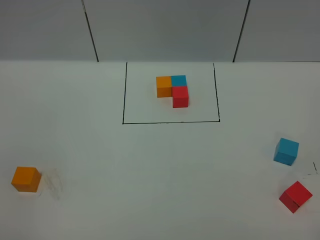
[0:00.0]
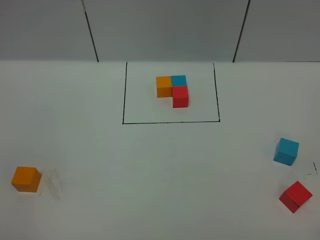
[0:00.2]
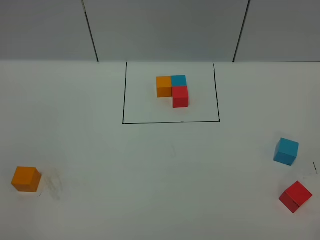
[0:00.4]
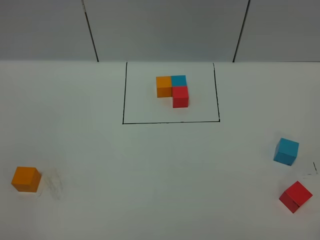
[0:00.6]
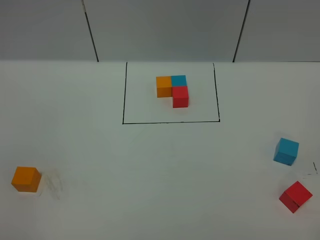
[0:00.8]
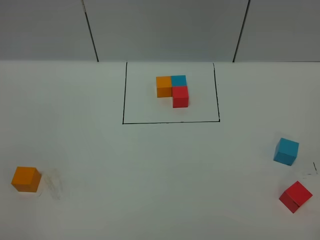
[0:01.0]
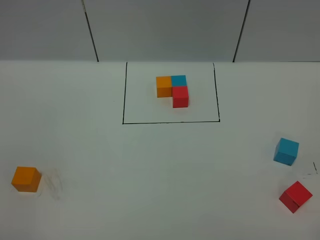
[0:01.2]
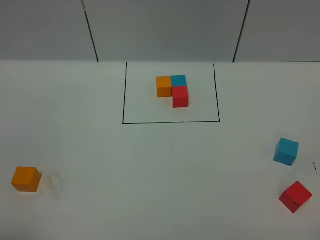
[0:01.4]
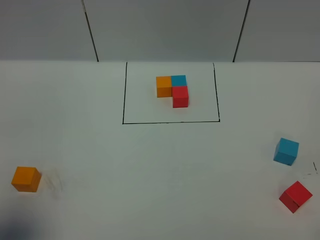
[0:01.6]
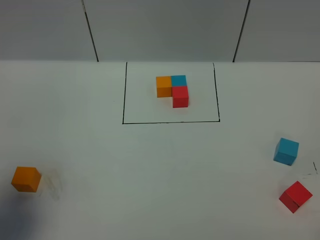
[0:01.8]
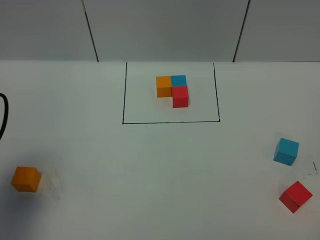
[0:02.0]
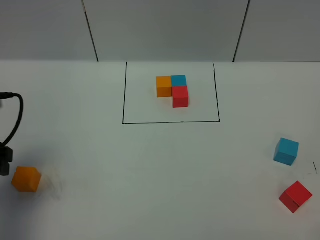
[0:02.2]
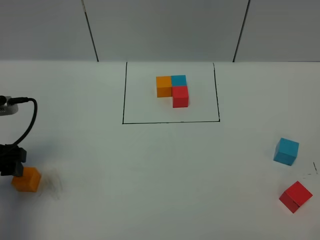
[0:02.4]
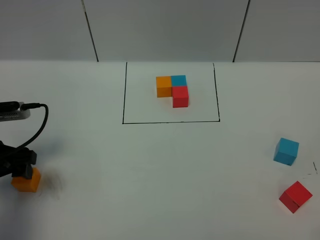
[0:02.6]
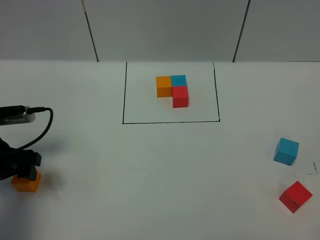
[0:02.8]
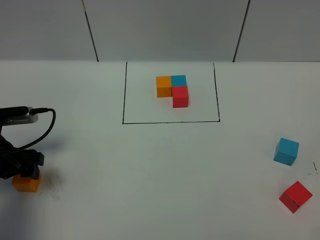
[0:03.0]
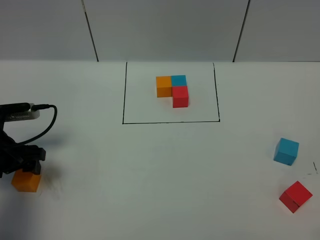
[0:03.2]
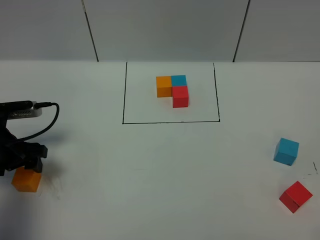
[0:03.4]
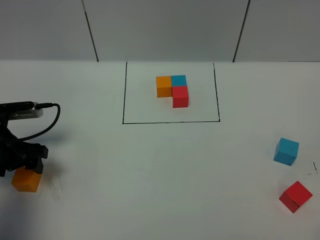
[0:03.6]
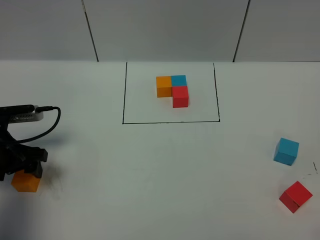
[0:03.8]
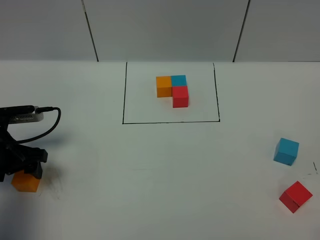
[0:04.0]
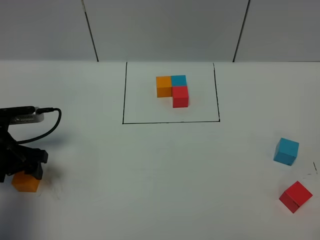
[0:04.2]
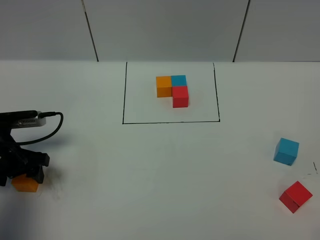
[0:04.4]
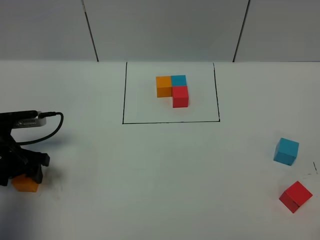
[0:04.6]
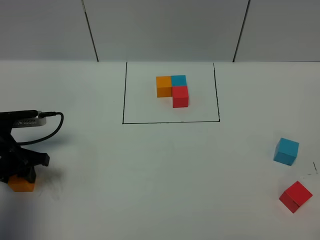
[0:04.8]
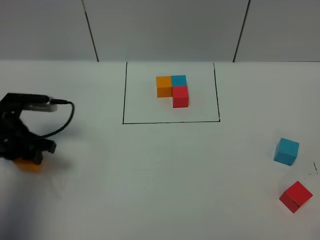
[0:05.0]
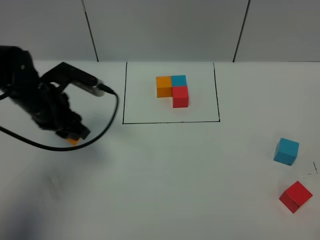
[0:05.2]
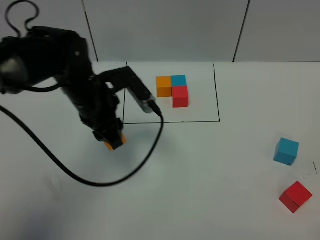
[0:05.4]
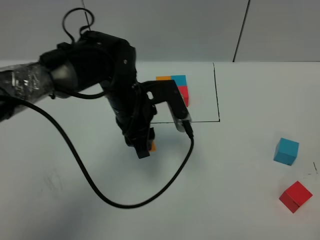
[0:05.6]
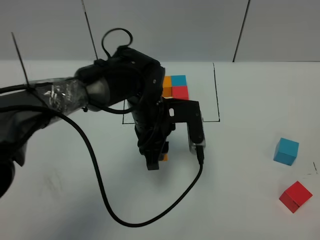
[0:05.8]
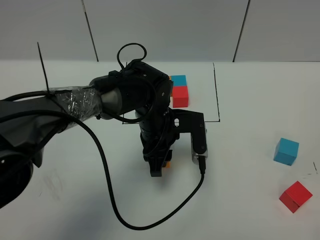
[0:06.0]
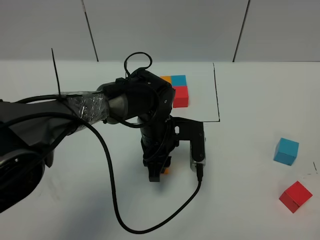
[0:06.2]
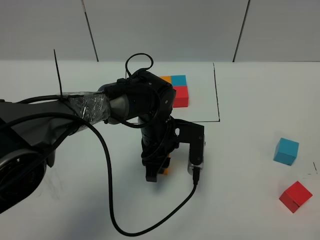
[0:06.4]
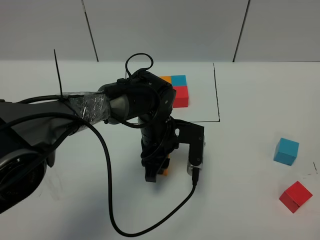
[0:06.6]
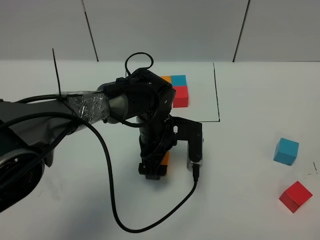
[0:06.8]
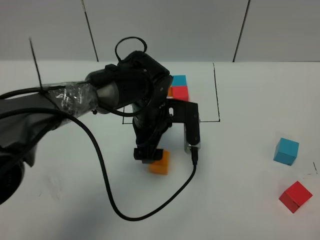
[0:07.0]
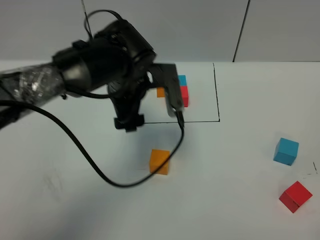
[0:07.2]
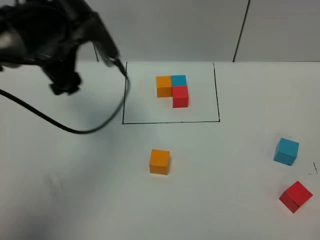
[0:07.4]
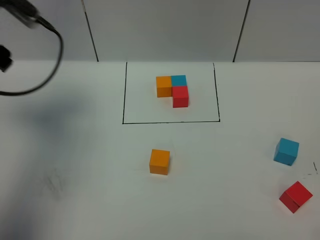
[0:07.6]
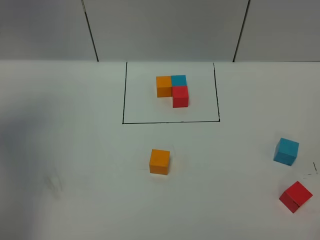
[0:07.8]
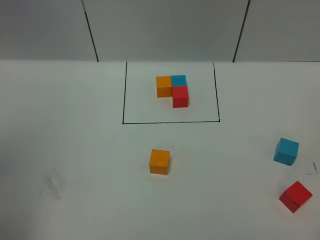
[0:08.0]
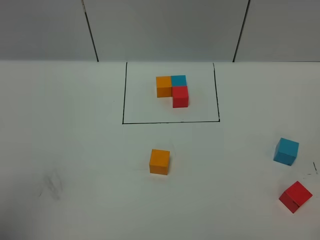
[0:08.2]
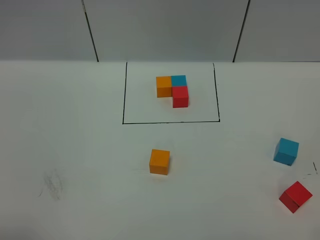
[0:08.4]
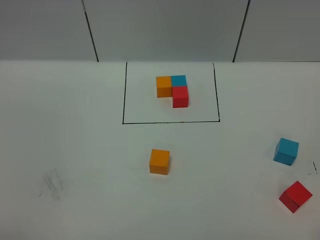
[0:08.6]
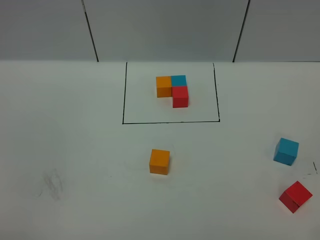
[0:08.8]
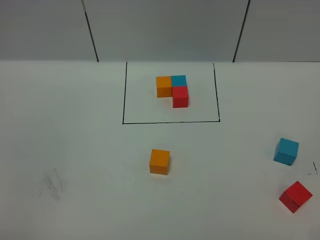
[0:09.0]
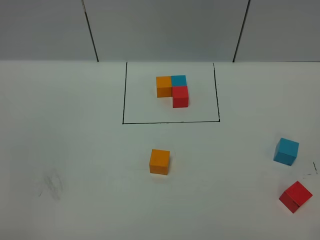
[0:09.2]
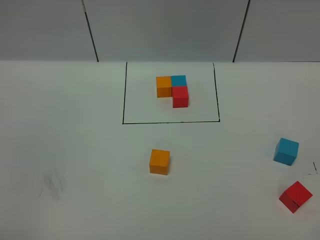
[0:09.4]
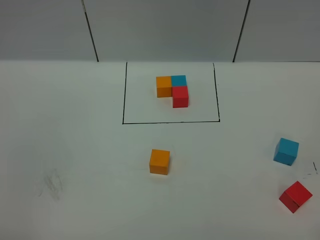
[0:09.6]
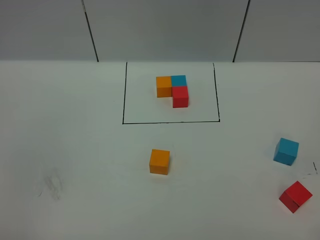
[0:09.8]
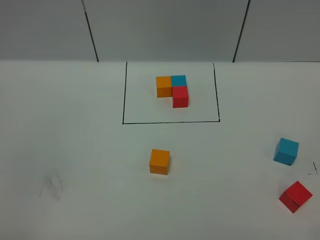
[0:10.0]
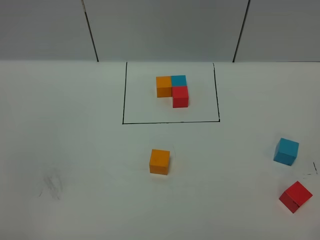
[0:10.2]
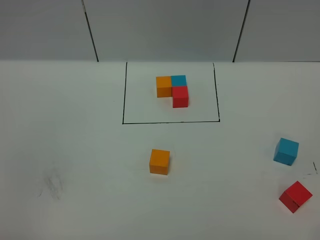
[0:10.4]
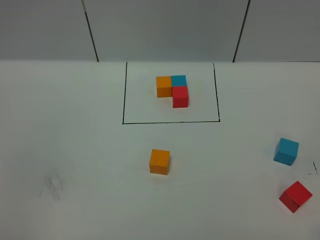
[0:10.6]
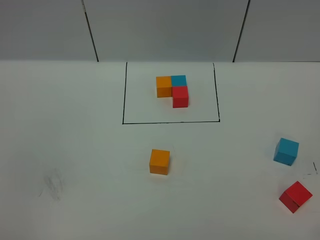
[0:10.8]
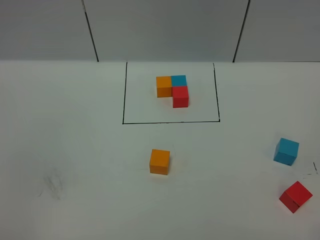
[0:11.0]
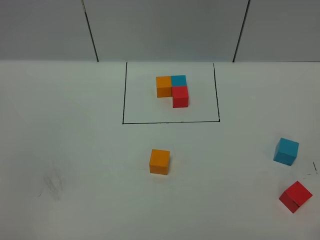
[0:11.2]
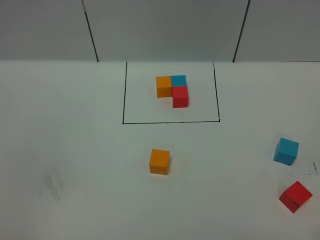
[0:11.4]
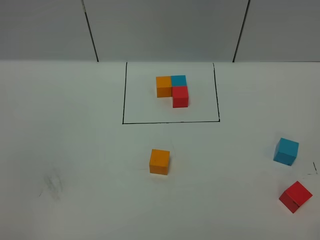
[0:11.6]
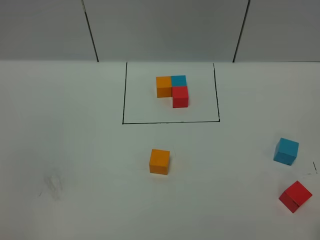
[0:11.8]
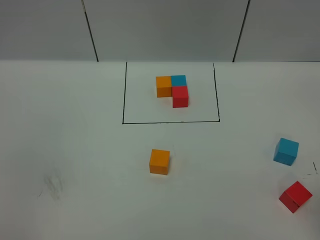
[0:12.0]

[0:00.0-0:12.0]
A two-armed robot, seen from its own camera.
Task of the whole recording: According to the building block template in front, assemble the scattered blocks together.
Step, 0:02.0 to 0:06.8: Put the orange cube in the center of the table.
0:00.0 to 0:01.6: The left gripper shifts approximately 10 cm forward.
0:01.6 to 0:03.0: The left gripper shifts approximately 25 cm forward and downward.
0:03.0 to 0:04.4: The grippers move only a little.
0:04.4 to 0:06.0: The left gripper goes roughly 30 cm to the right, and closes its fingers.
0:06.0 to 0:07.6: The left gripper shifts approximately 35 cm to the left and upward, and opens up.
0:07.6 to 0:09.0: The left gripper heads backward, covering approximately 35 cm.

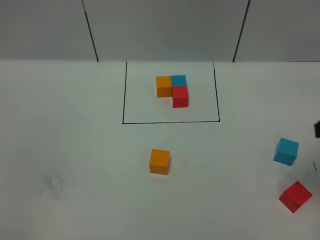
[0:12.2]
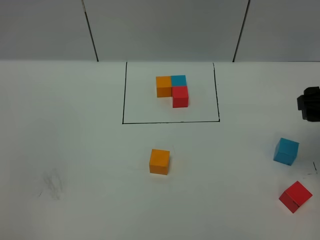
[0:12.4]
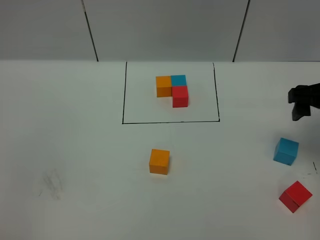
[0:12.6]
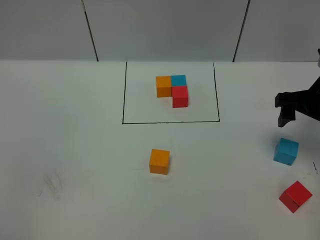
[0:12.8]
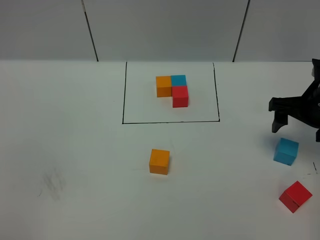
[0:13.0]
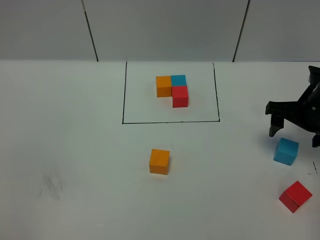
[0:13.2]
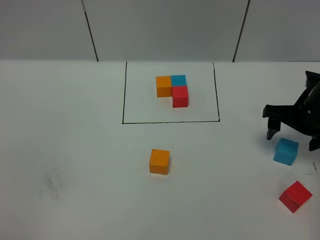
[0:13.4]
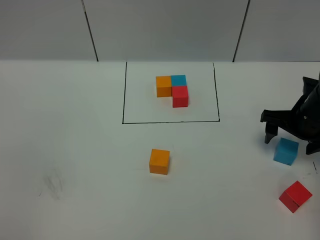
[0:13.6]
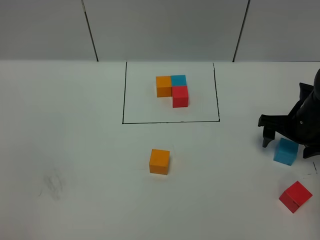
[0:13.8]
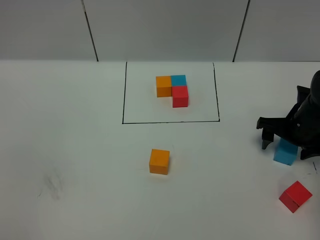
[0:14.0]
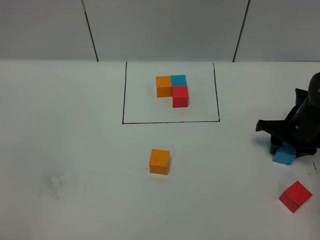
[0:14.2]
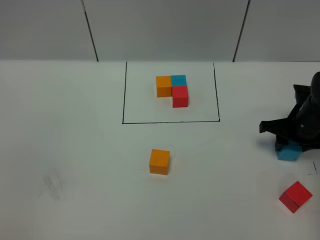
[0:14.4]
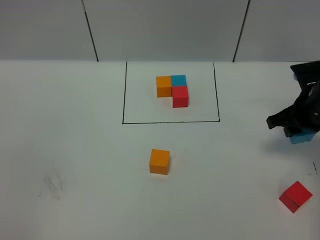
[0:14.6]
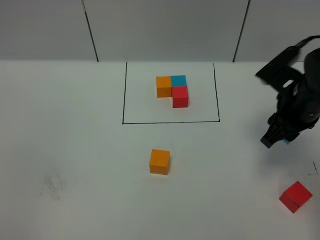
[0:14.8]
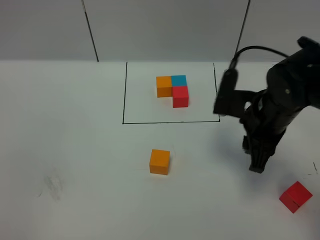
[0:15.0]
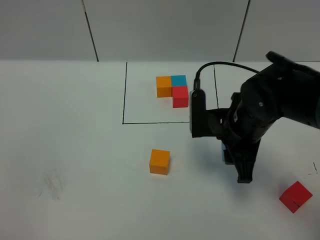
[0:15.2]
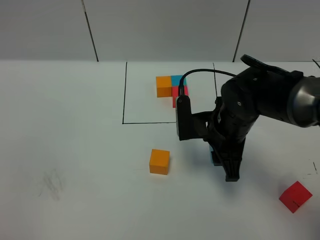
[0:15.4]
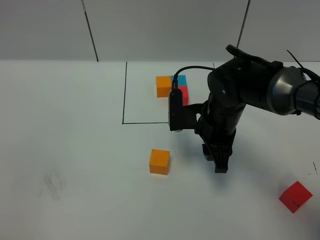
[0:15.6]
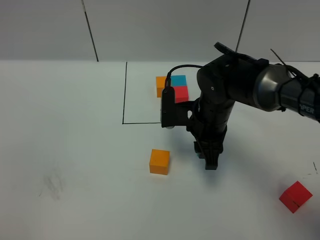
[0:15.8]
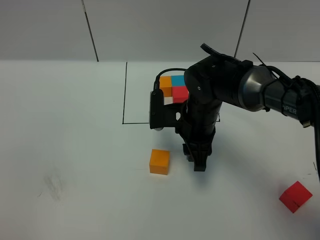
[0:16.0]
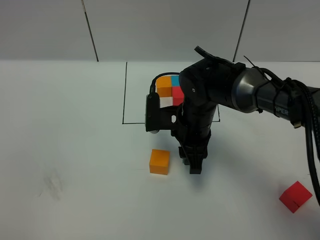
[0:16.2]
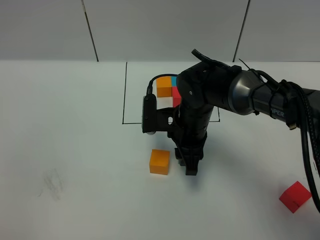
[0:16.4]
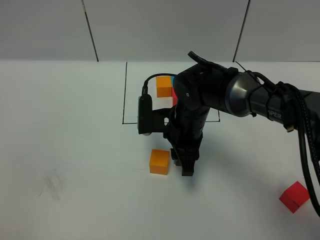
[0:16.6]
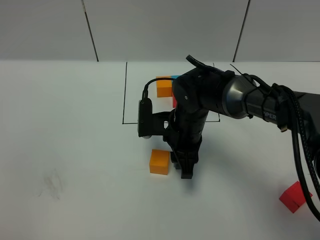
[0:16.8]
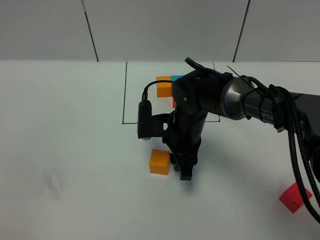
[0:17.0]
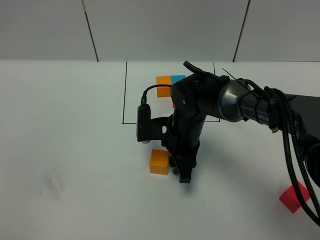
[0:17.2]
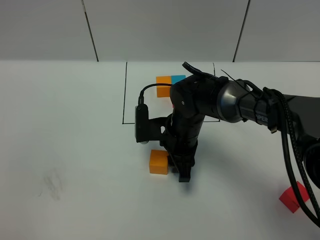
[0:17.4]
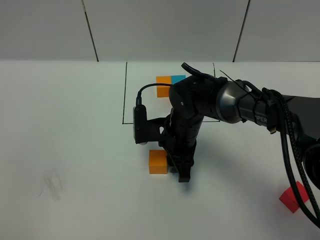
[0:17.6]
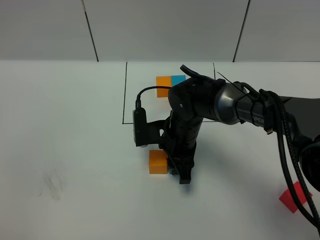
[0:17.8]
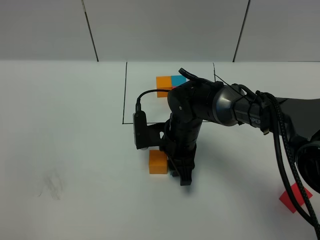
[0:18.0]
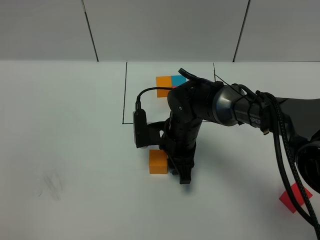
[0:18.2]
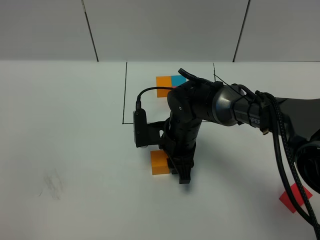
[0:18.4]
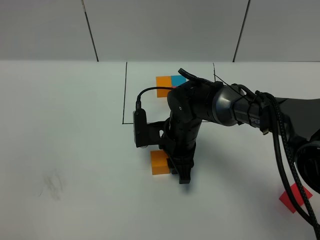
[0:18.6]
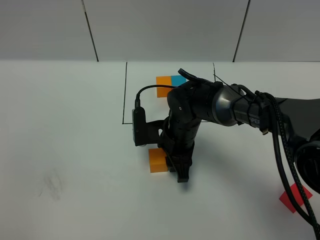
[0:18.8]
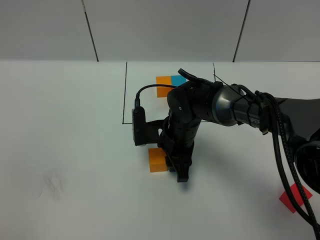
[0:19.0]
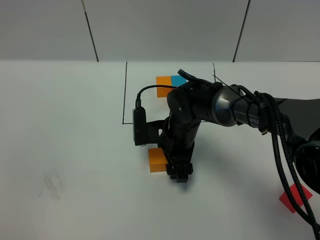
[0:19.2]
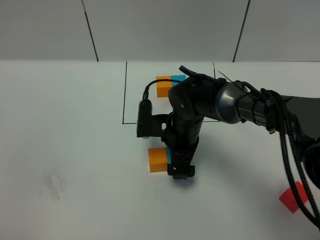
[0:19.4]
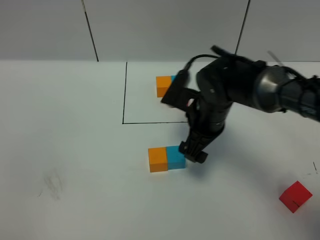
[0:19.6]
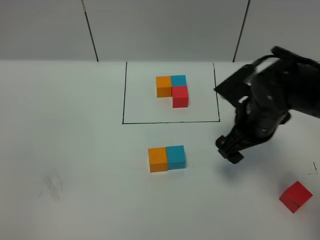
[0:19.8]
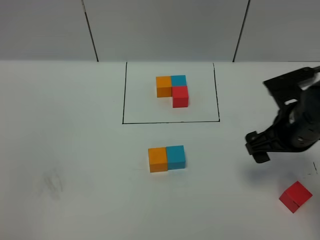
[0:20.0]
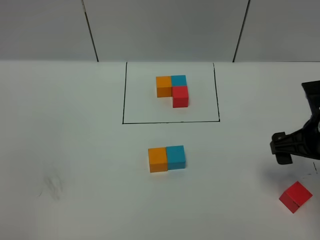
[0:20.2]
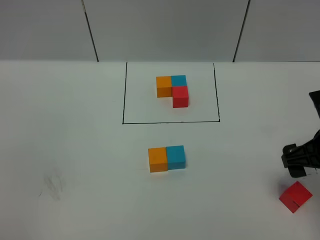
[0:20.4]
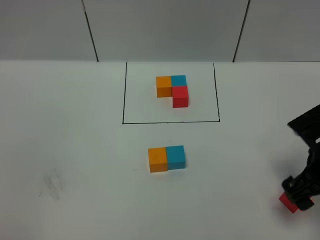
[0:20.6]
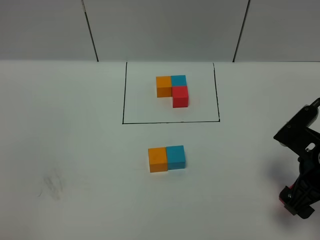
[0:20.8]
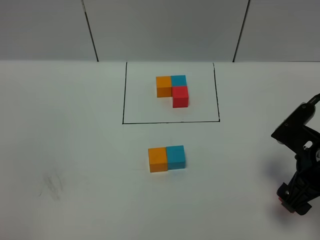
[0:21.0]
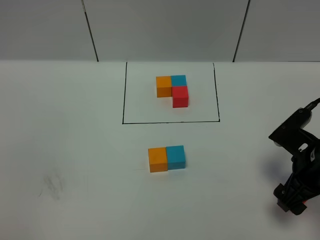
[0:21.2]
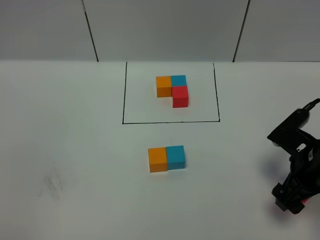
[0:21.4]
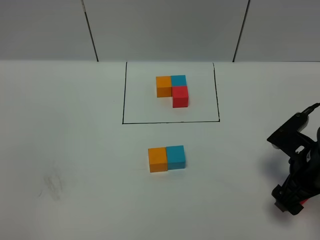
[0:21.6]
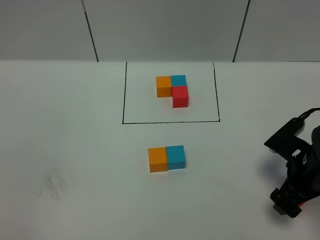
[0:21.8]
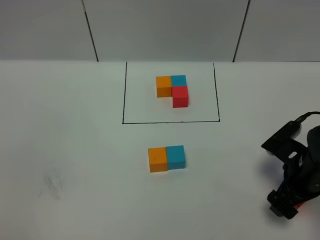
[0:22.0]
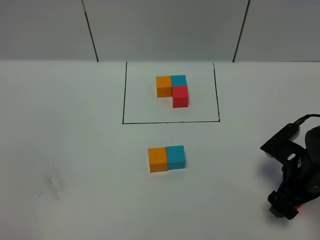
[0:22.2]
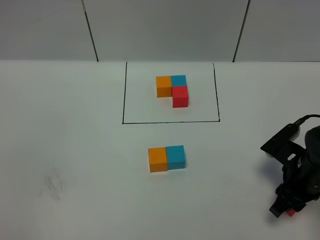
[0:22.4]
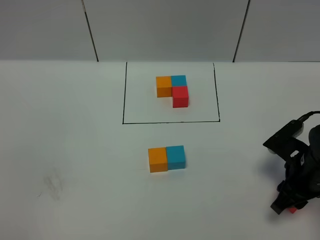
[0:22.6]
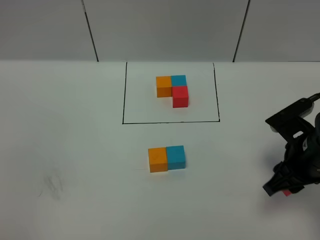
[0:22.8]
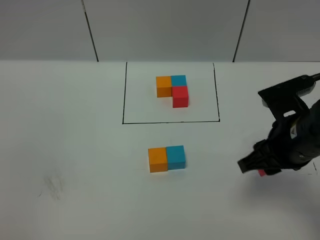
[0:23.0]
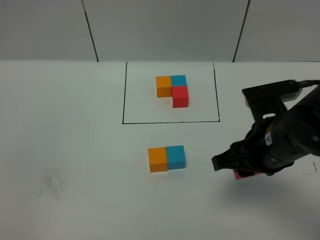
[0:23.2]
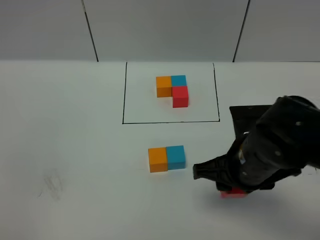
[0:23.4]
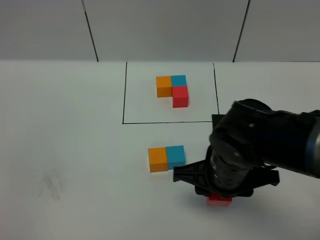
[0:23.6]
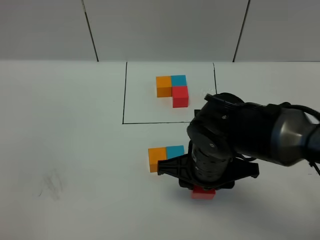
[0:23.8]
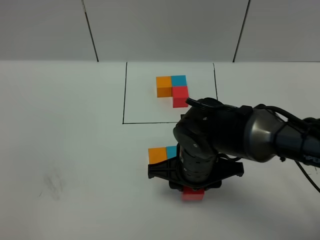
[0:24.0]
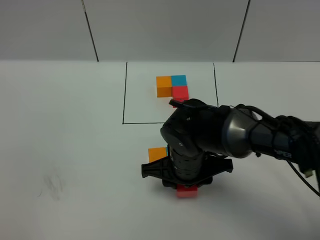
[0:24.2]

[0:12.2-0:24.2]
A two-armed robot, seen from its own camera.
Task of the whole recording: According to the building block template in front, assemble the scattered blocks together.
Step, 0:12.2 to 0:19.4: Put the blue cube on the right of the orange cube.
0:12.2 to 0:13.8: The right gripper is displaced downward and forward by about 20 cm.
0:13.8 to 0:15.2: The right gripper travels to the left and upward by approximately 15 cm, and closes up.
0:15.2 to 0:16.6: The right gripper travels to the left by approximately 10 cm.
0:16.6 to 0:18.2: The grippers make only small movements.
0:18.2 to 0:19.8: The right gripper goes roughly 15 cm to the right and upward, and opens its fingers.
0:19.8 to 0:21.2: The right gripper shifts roughly 10 cm backward and to the right.
0:21.2 to 0:22.6: The right gripper closes up.
0:22.6 to 0:24.2: The right gripper goes some 20 cm to the left.
